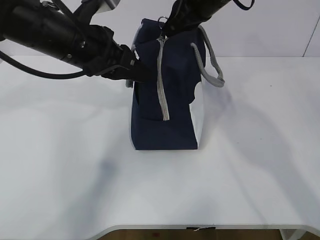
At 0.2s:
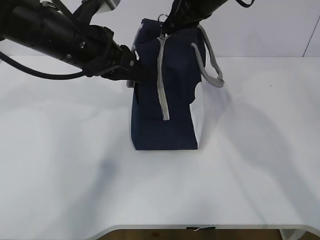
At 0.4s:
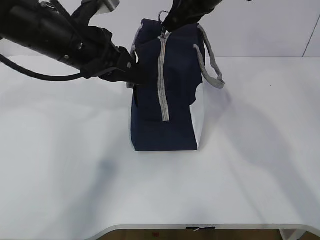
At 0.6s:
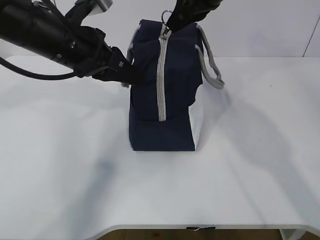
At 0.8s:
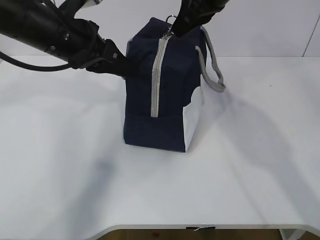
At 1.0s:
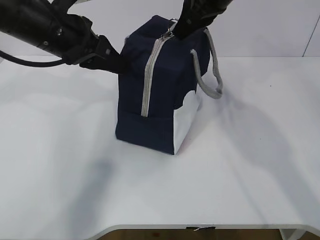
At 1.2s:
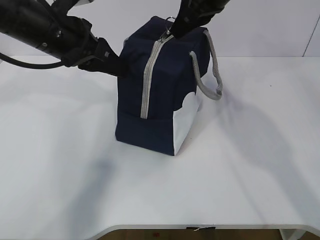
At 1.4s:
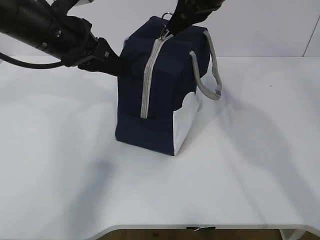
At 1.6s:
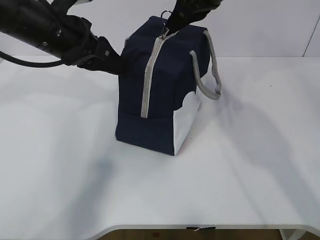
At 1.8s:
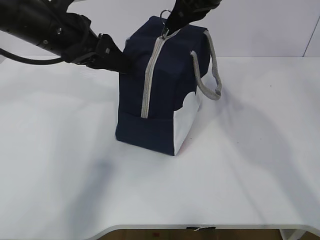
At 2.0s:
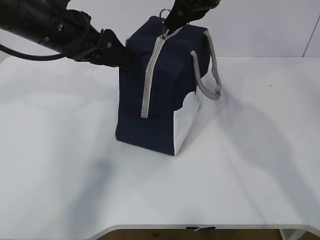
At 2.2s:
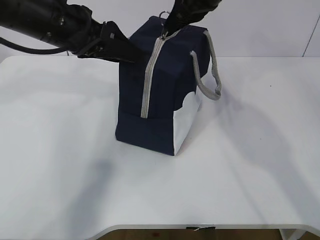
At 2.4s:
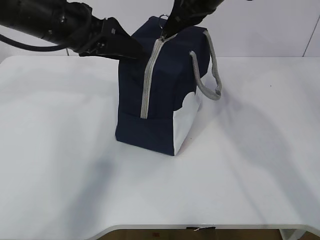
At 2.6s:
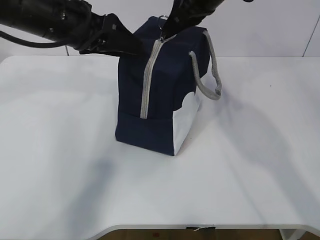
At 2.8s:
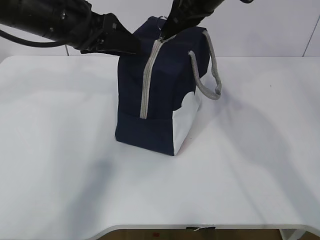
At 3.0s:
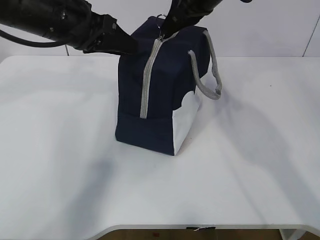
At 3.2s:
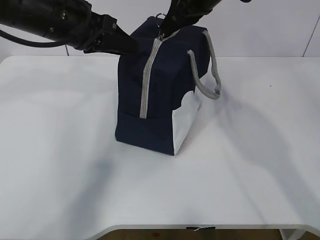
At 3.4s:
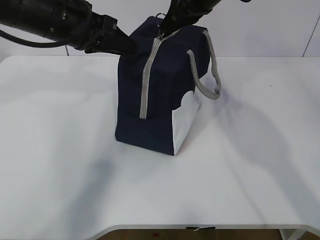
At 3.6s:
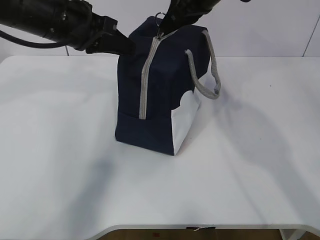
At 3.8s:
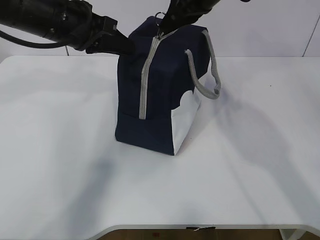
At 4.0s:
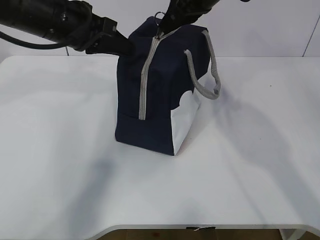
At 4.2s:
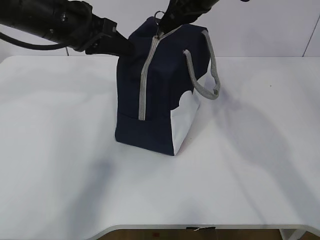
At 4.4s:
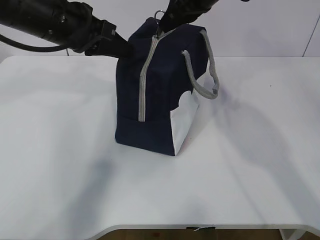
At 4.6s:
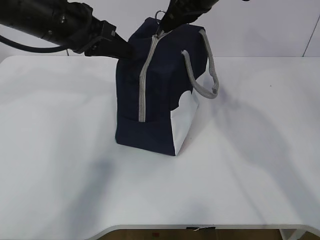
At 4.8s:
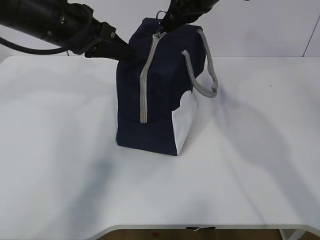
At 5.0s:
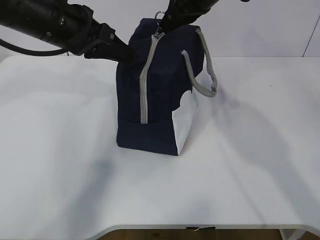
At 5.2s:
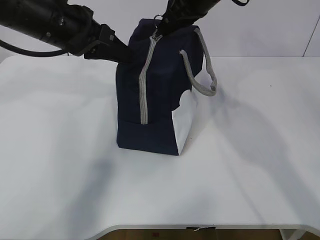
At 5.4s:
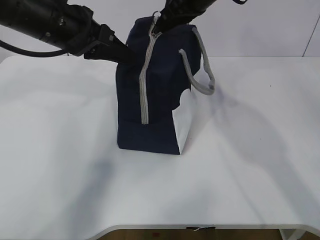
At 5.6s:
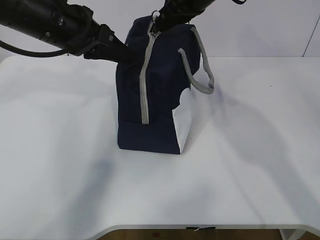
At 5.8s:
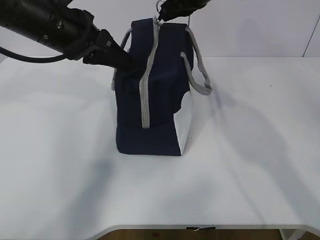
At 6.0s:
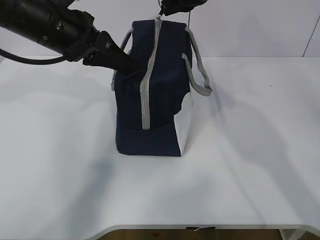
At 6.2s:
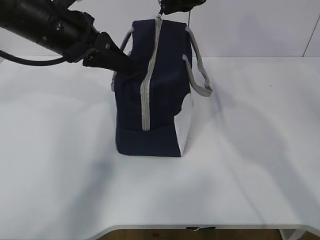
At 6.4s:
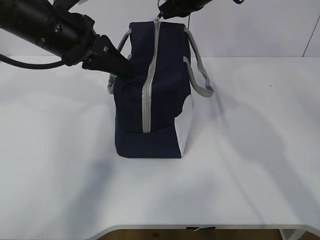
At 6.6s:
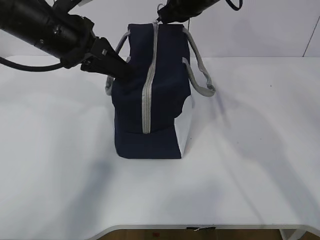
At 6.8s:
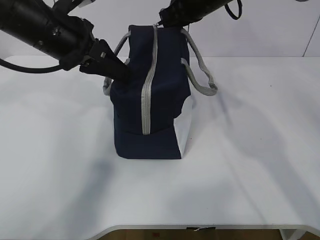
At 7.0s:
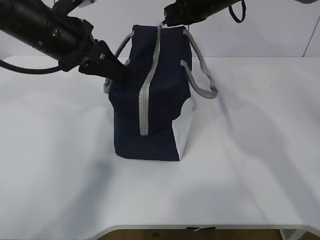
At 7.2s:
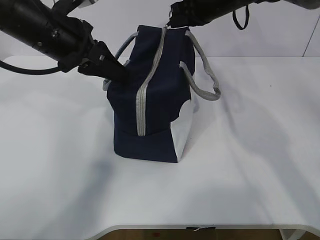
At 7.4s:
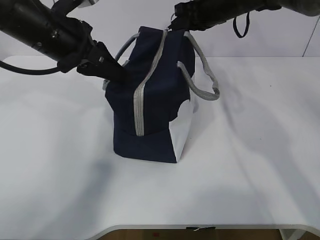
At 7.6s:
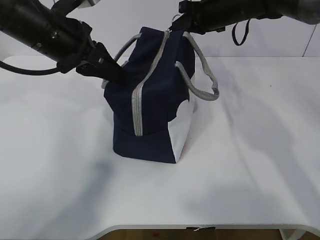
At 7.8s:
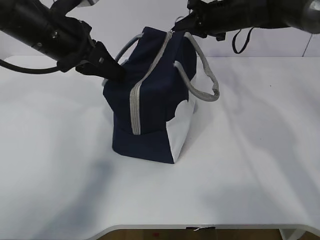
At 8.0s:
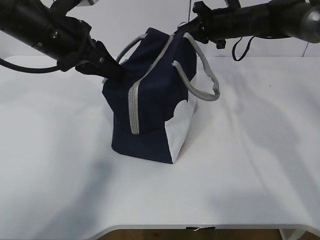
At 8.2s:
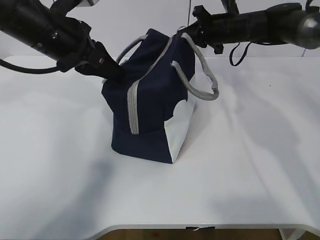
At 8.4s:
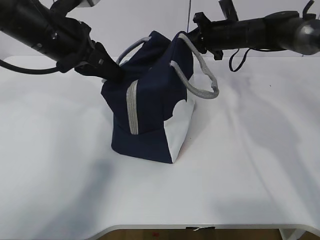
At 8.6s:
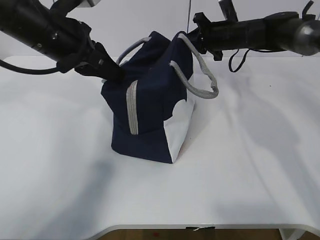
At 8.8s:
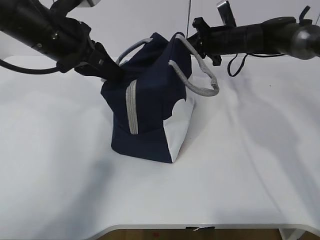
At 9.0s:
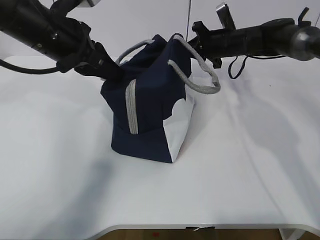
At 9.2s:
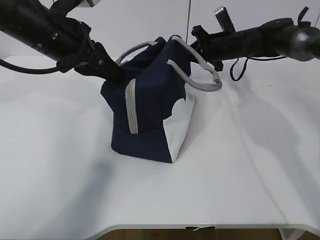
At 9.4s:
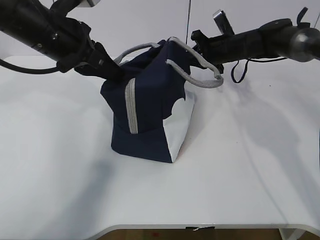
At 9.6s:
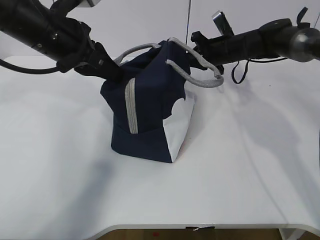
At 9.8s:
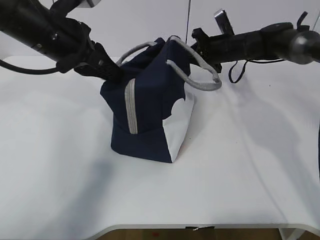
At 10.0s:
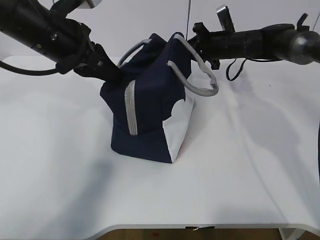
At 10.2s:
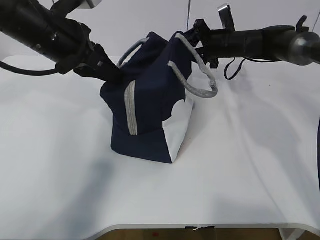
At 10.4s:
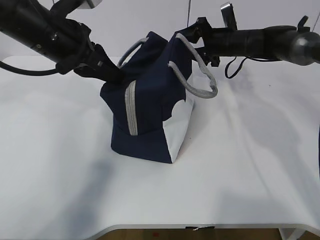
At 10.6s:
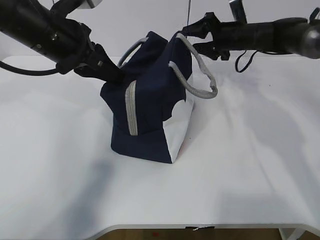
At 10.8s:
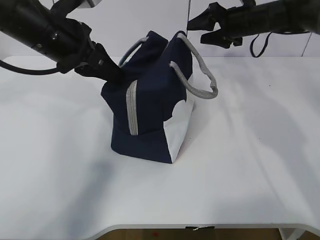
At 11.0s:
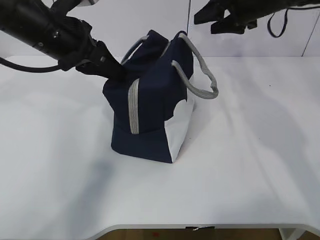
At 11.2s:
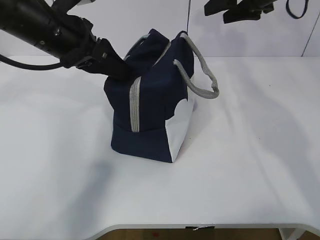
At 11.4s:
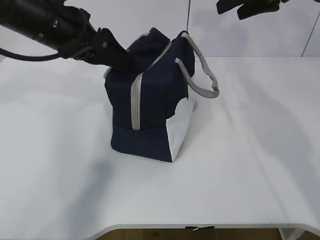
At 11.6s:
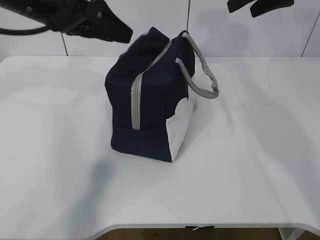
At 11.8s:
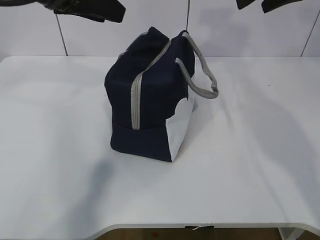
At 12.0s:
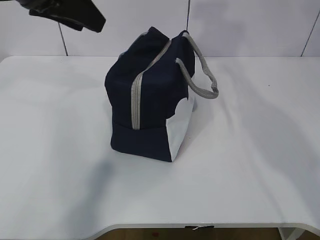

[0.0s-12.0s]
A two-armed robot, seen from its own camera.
Step, 0.0s to 10.8s: zip up the zipper to close the bag.
0.0s to 1.6s: The grippers make only small movements.
1.6s to 3.0s: The left gripper opens and closes again.
3.0s to 4.4s: The left gripper closes its fingers.
4.4s to 6.0s: There are only small adjustments of the grippers.
6.0s to 7.6s: The right gripper shifts about 10 cm downward, forward and to the right.
7.6s to 9.0s: The right gripper is displaced downward by about 10 cm.
9.0s to 10.4s: The right gripper opens its fingers.
10.4s to 12.0s: The right gripper heads upward and backward, covering roughly 25 cm. The left gripper goes roughly 10 cm upward, and opens up.

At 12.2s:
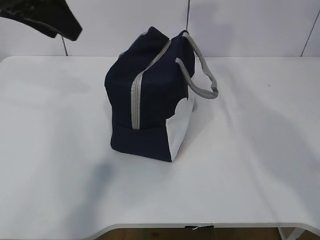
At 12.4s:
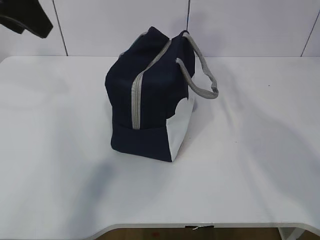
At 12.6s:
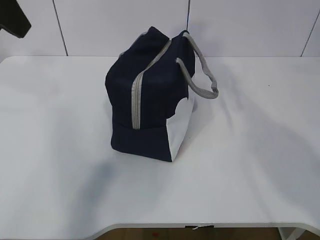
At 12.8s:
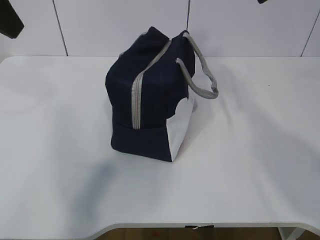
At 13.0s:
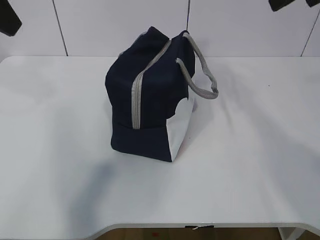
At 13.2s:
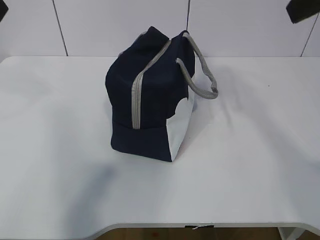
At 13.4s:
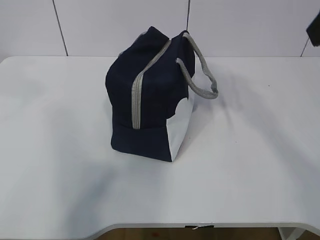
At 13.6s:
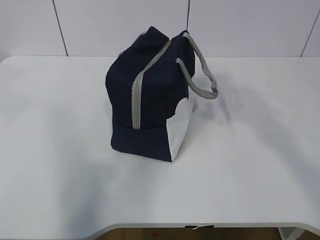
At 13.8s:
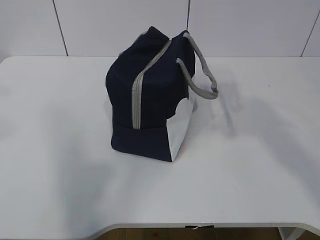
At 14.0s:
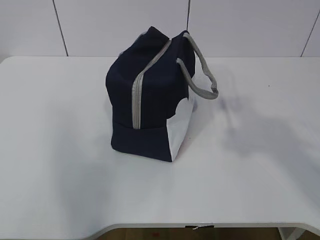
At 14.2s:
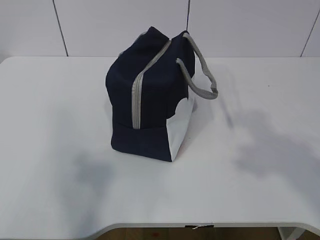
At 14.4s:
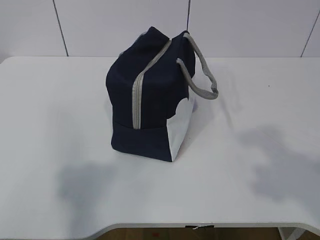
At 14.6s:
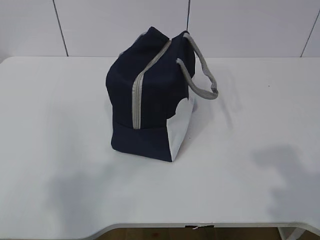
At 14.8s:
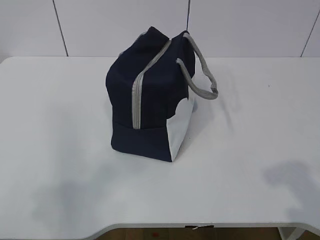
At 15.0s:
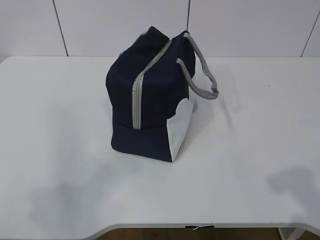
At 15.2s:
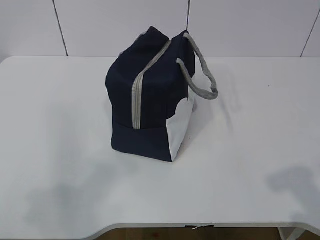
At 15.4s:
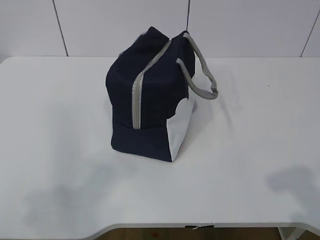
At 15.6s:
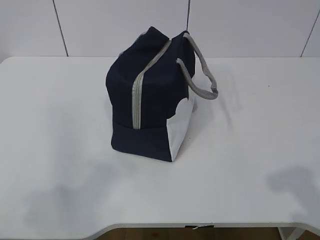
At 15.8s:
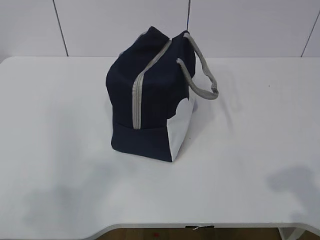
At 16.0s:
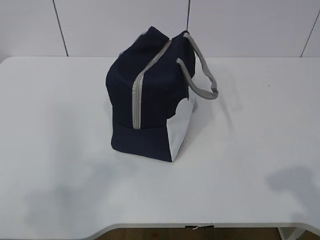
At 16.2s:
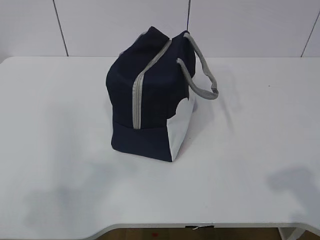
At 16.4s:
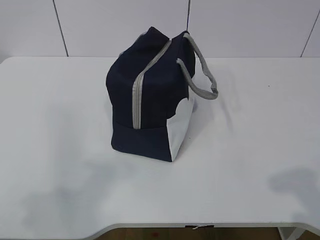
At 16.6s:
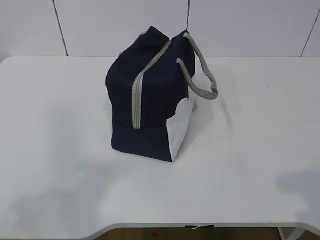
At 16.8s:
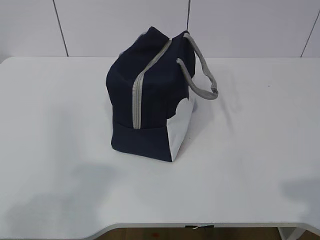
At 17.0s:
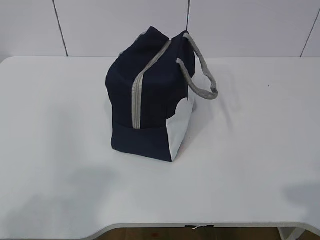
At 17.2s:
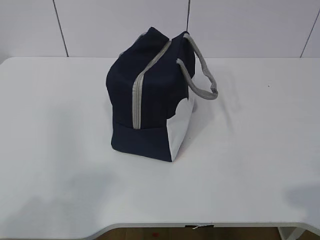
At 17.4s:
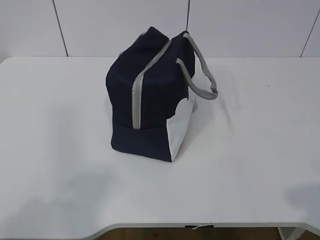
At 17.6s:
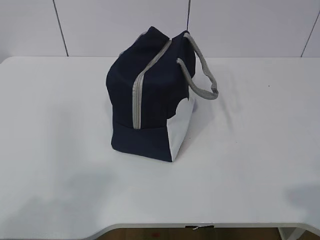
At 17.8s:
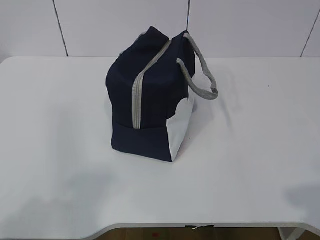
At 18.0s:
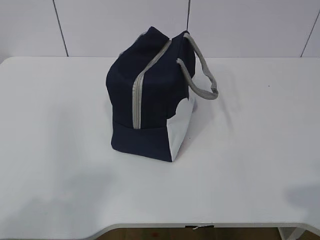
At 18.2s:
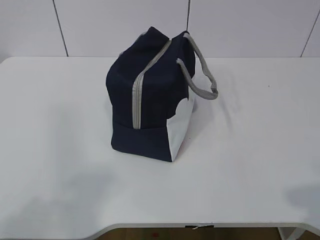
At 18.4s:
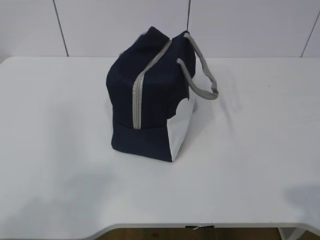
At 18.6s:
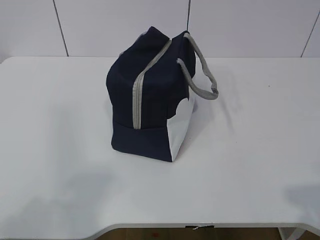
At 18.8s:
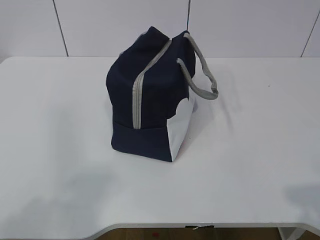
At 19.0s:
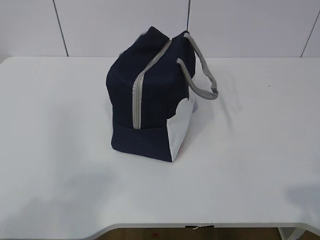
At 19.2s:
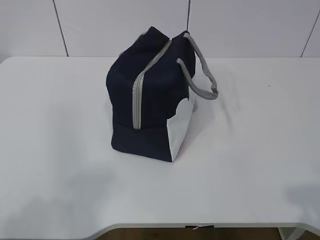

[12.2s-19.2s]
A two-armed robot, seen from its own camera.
12.2s to 13.6s: The left gripper shifts about 15 cm backward, to the left and upward, while the right gripper heads backward, covering approximately 20 cm.
13.6s to 15.0s: The left gripper moves downward and backward, roughly 20 cm. The right gripper goes approximately 20 cm backward and downward.
15.0s to 16.4s: The two grippers keep their place.
17.8s to 19.2s: Both grippers stay about where they are.

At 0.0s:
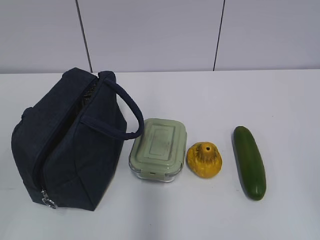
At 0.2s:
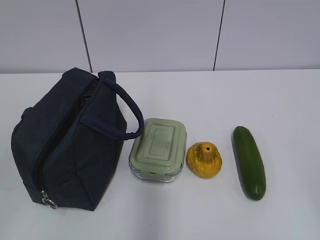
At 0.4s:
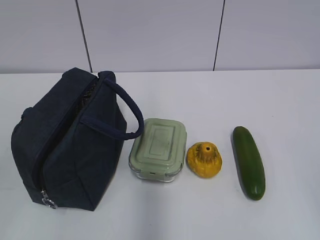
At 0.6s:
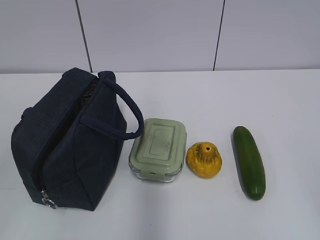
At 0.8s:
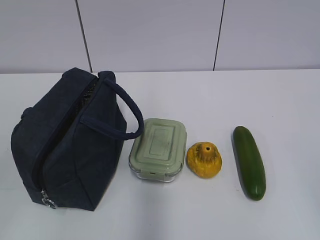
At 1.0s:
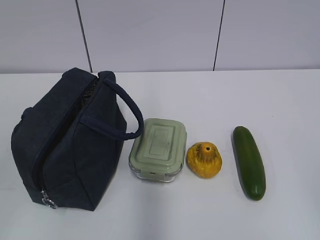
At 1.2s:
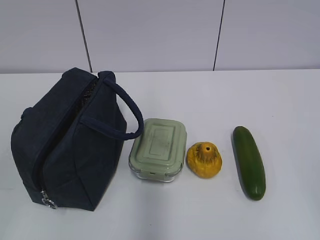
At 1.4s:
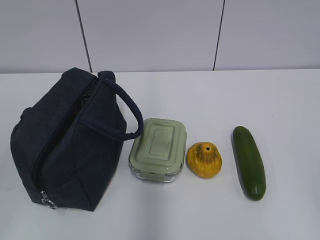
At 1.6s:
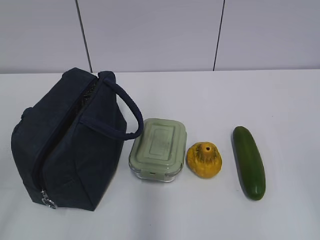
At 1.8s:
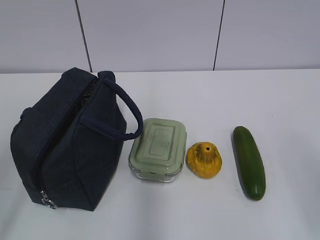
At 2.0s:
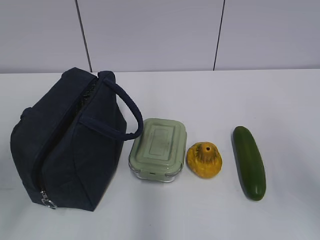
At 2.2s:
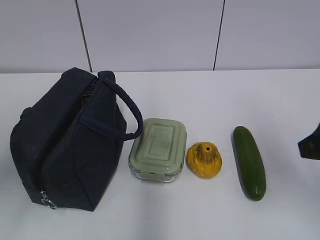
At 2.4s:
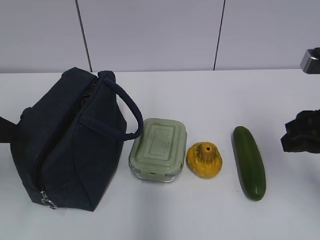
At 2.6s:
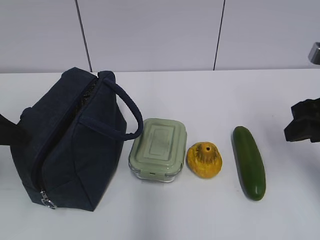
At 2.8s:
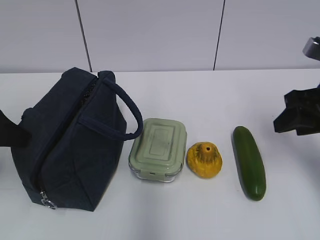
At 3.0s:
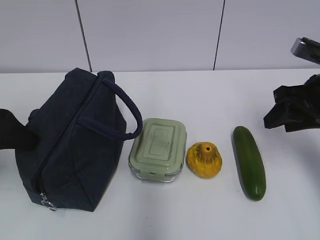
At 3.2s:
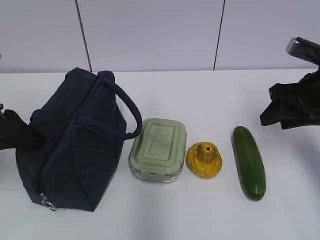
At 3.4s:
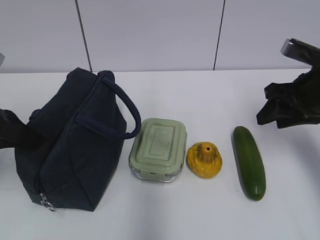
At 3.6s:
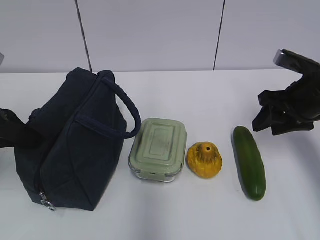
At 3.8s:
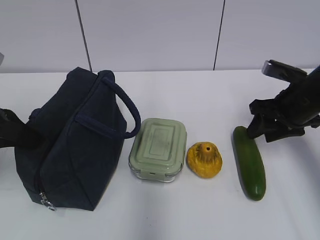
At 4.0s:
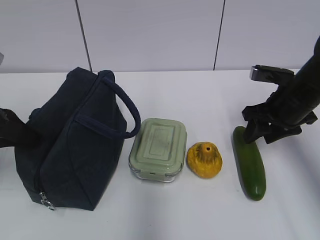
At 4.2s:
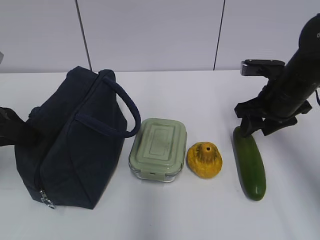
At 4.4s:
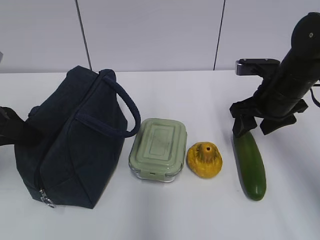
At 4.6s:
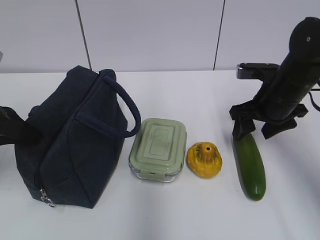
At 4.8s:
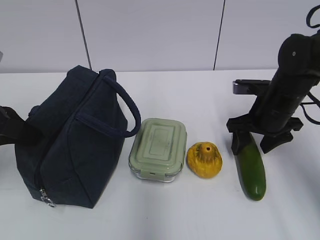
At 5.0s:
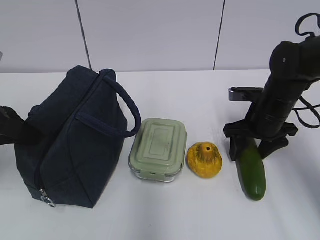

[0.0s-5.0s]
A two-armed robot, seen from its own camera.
1.6s to 3.4s: Both grippers move forward, roughly 25 cm. The left gripper closes up.
3.4s to 5.0s: The right gripper shifts approximately 10 cm downward.
